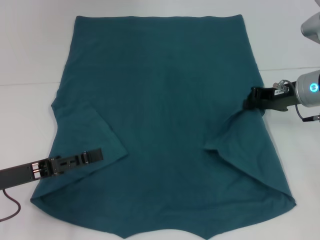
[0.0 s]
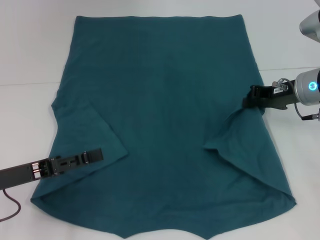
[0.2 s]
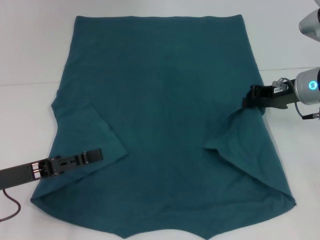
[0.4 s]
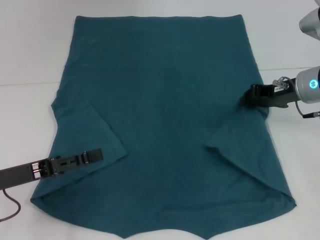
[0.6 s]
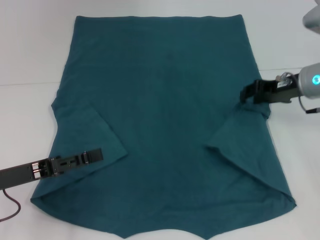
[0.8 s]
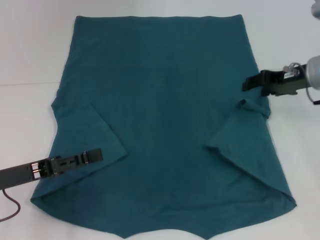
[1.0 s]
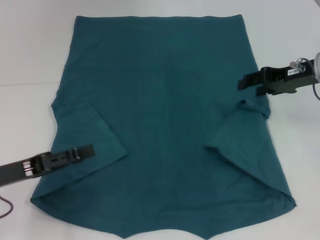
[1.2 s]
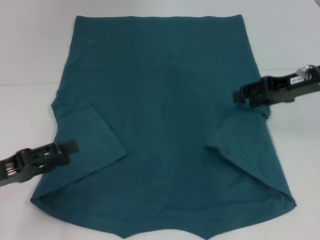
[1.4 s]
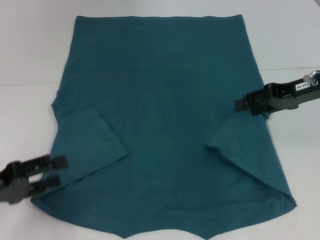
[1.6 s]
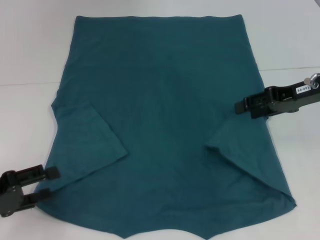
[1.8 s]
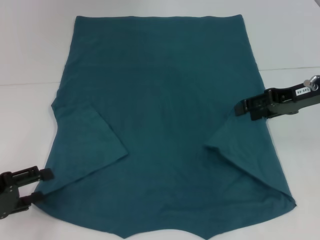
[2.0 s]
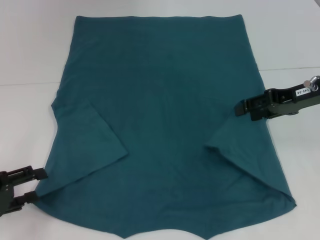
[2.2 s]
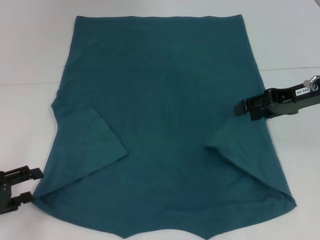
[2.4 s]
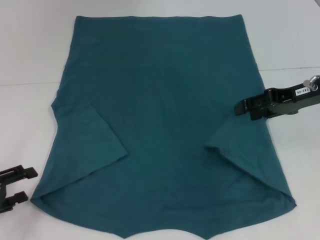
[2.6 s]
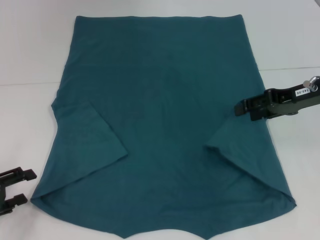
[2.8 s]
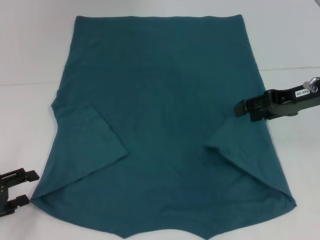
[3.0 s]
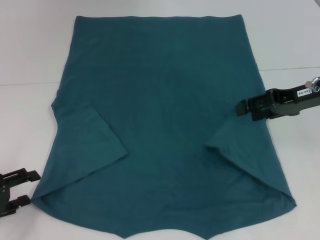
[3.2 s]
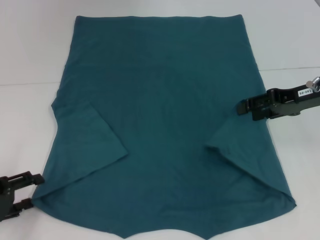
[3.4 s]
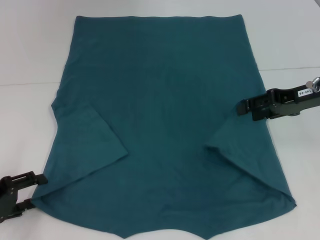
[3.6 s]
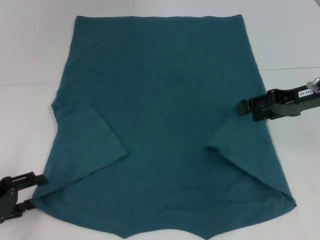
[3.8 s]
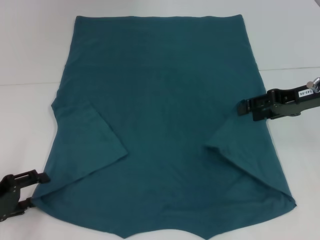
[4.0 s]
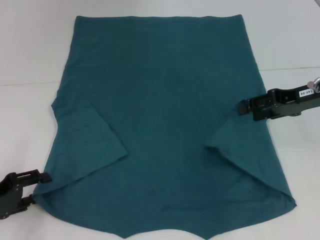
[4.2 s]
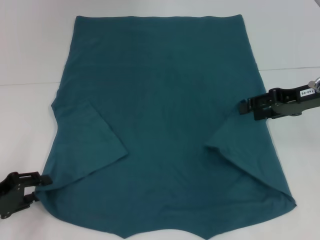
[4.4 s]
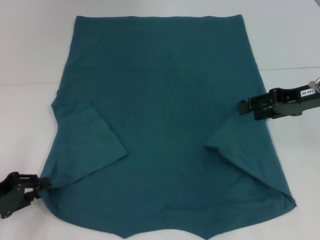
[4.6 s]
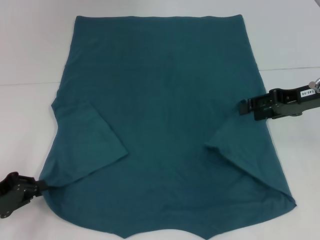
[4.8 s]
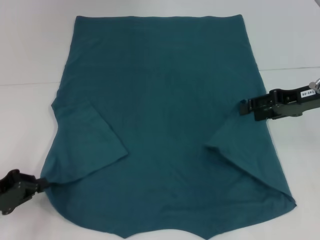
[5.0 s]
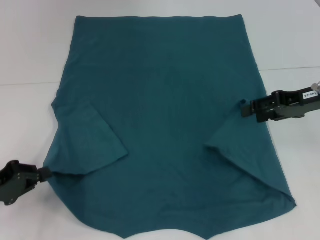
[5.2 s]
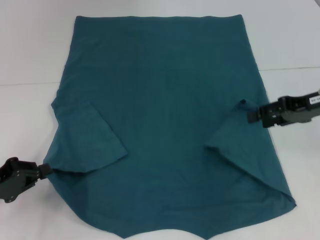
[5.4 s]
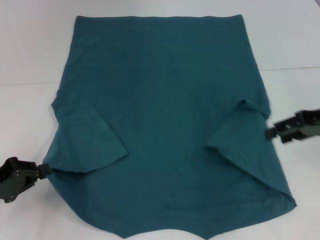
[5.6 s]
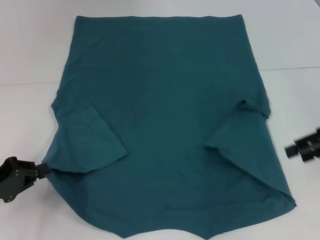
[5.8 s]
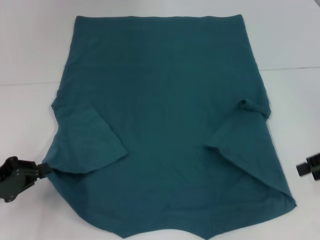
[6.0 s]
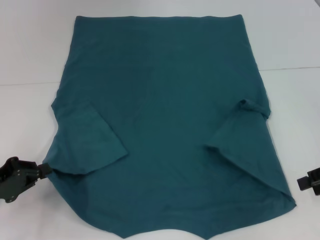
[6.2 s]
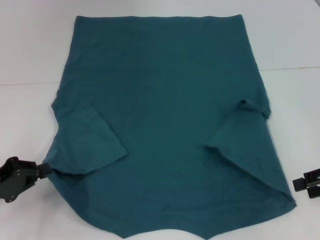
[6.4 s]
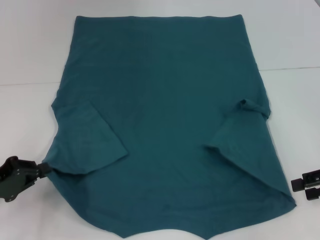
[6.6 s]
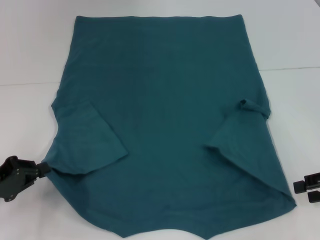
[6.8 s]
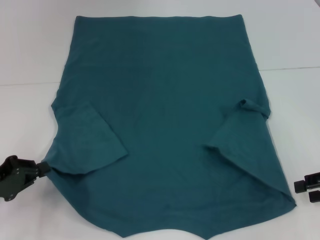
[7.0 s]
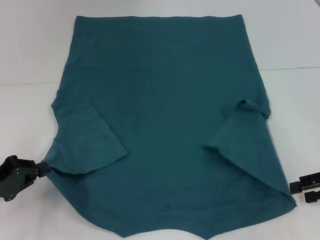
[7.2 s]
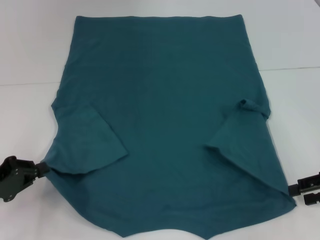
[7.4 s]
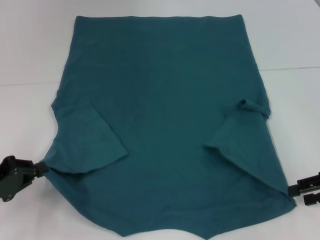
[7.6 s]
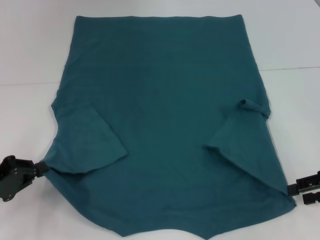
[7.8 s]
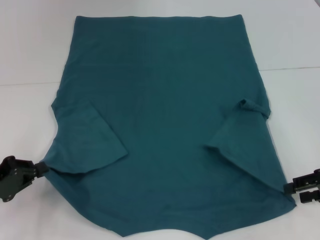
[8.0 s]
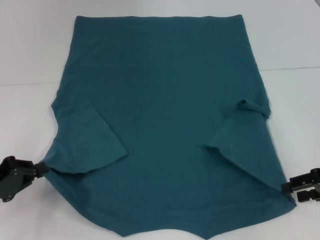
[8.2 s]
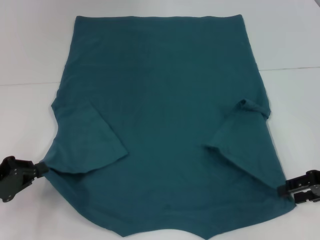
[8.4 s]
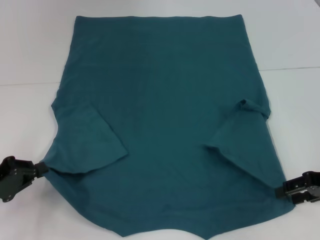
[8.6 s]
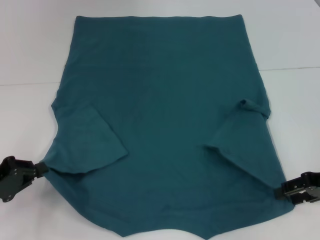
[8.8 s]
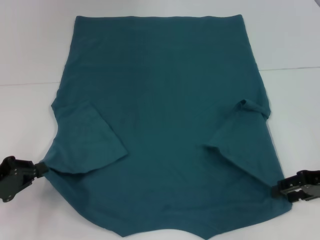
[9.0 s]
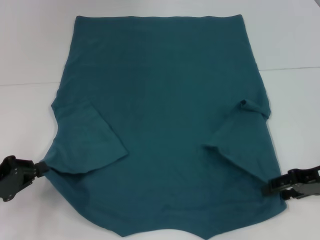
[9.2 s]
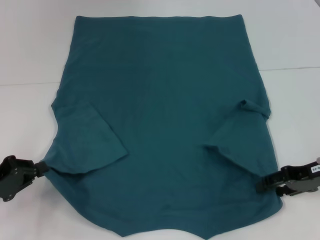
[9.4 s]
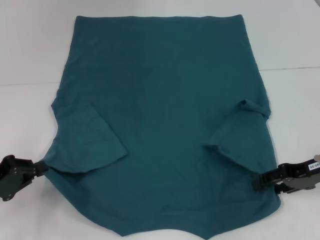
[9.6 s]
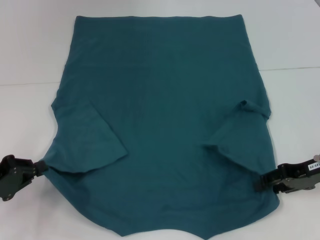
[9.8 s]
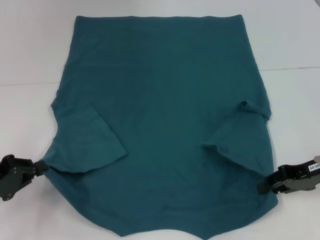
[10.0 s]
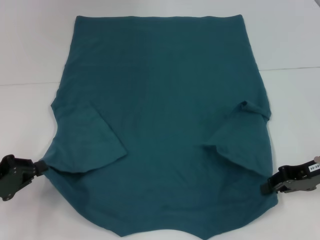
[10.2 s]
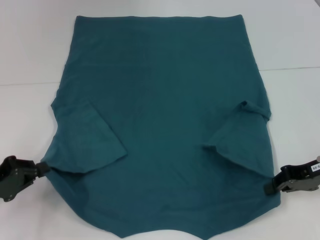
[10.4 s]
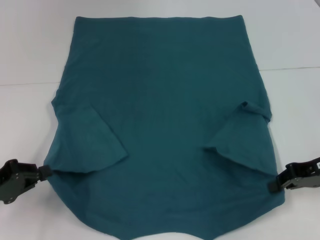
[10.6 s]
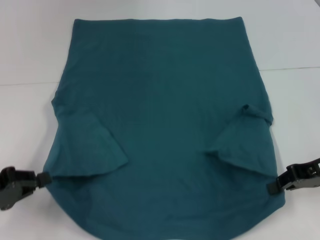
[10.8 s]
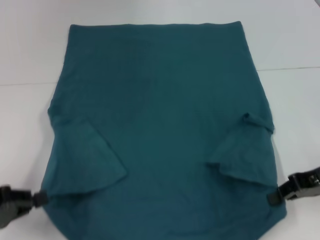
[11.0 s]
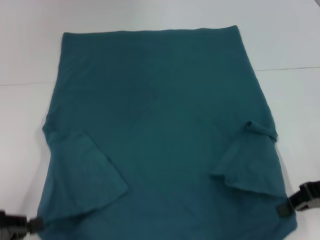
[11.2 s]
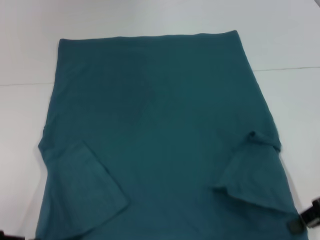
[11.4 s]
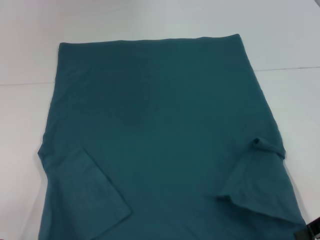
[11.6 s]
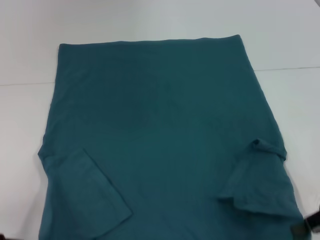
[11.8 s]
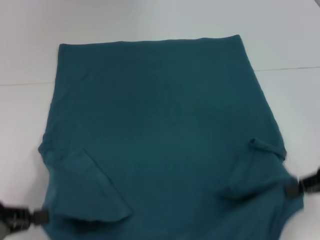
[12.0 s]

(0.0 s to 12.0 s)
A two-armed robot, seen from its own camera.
Step, 1.0 s - 5.0 s: Grab the bottom left corner with your left hand.
Step, 5.2 s - 10.4 s: Grab the bottom right corner with your right hand.
0.0 s - 1.6 s: The right gripper shifts approximately 5 cm upward, and opens up.
3.0 s - 4.4 s: The grippers stay close to where they were, moving slightly.
4.4 s - 6.0 s: The right gripper heads to the right and backward, covering some 10 cm. The left gripper closes.
6.0 s - 7.6 s: The right gripper shifts approximately 5 cm downward.
7.6 s - 9.0 s: The grippers move only a little.
9.0 s - 10.4 s: The right gripper closes.
10.4 s - 12.0 s: The left gripper shifts some 5 cm backward. Meanwhile the right gripper changes place by approximately 5 cm.

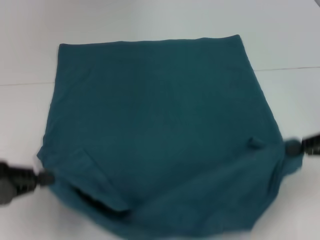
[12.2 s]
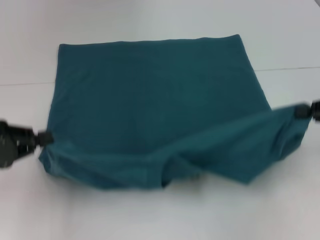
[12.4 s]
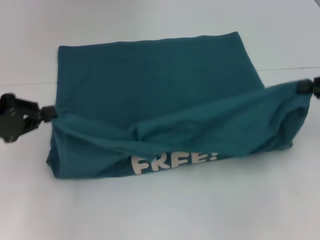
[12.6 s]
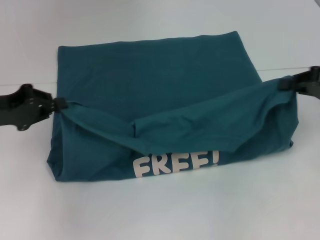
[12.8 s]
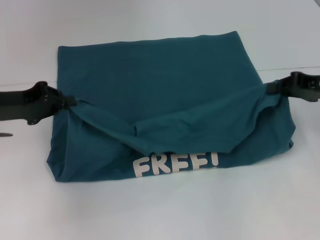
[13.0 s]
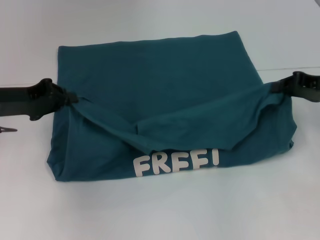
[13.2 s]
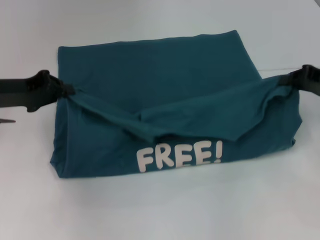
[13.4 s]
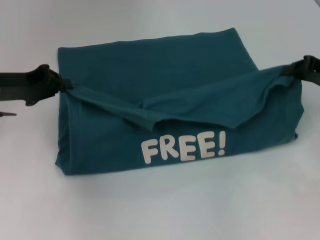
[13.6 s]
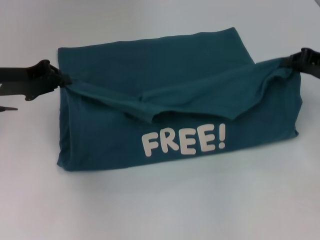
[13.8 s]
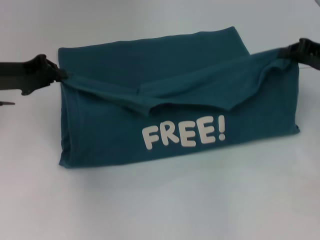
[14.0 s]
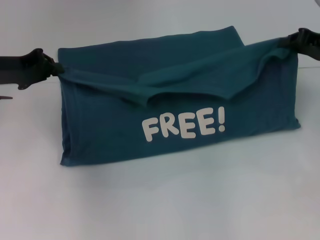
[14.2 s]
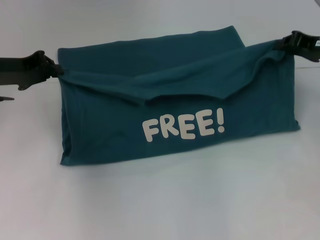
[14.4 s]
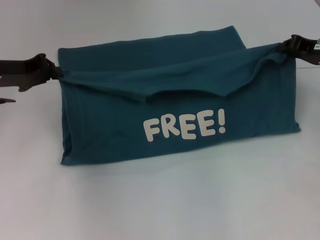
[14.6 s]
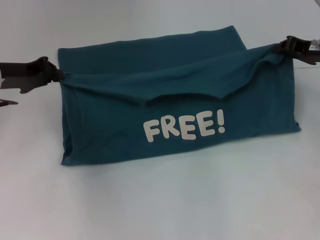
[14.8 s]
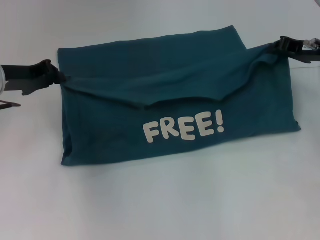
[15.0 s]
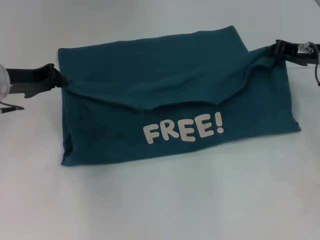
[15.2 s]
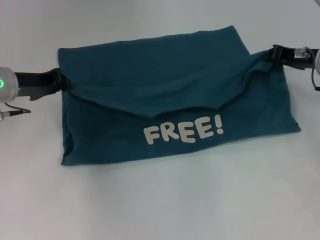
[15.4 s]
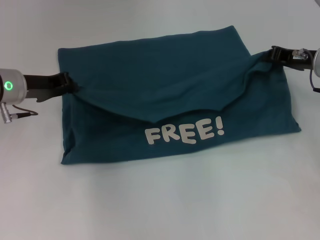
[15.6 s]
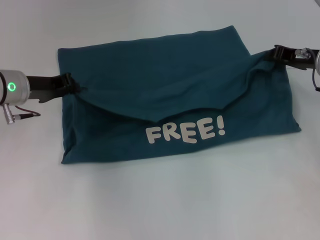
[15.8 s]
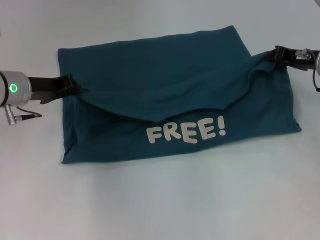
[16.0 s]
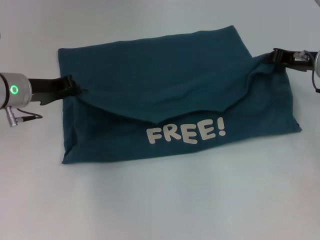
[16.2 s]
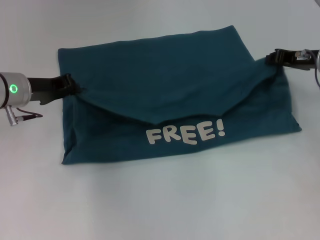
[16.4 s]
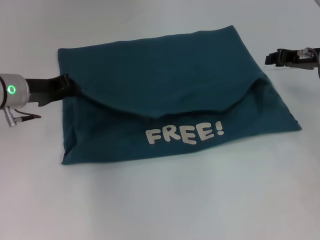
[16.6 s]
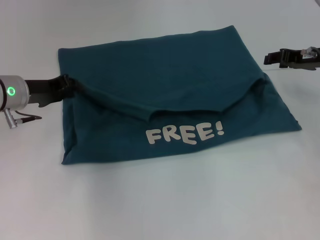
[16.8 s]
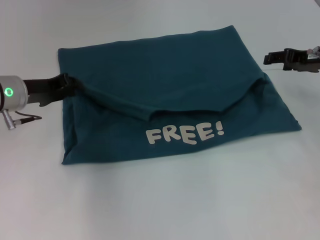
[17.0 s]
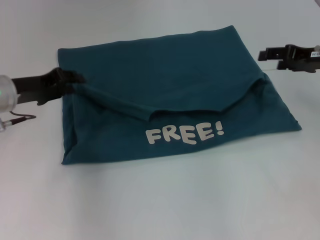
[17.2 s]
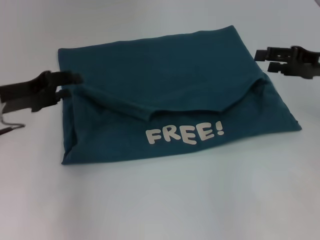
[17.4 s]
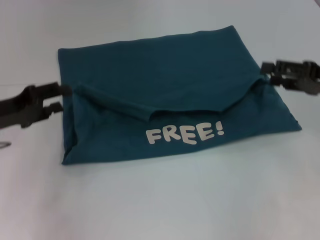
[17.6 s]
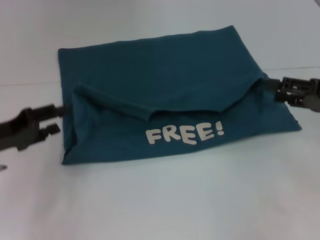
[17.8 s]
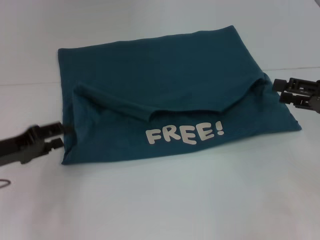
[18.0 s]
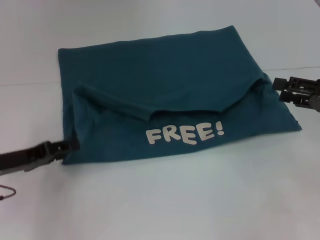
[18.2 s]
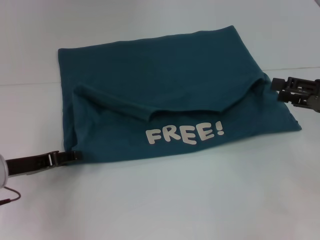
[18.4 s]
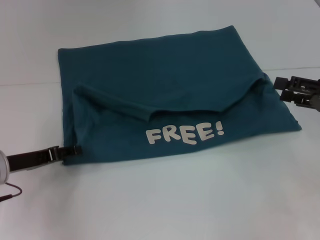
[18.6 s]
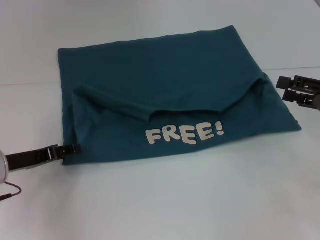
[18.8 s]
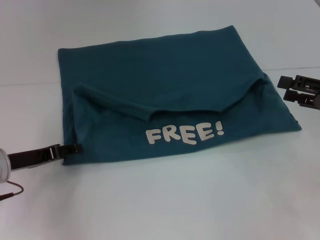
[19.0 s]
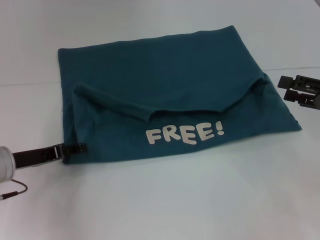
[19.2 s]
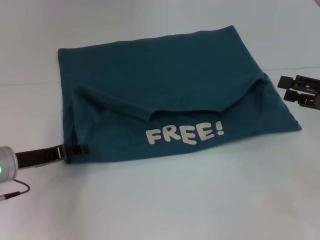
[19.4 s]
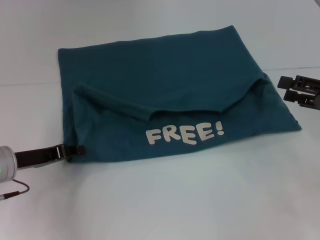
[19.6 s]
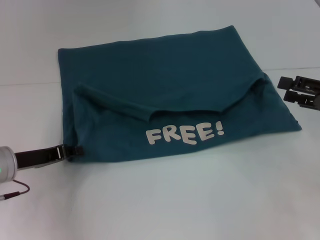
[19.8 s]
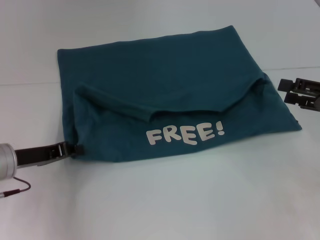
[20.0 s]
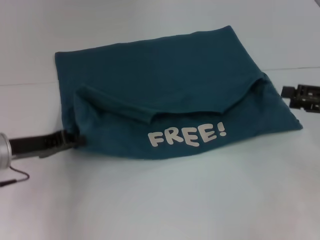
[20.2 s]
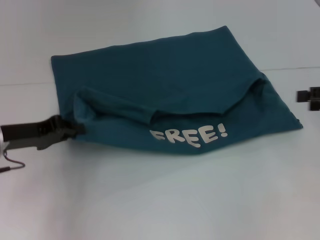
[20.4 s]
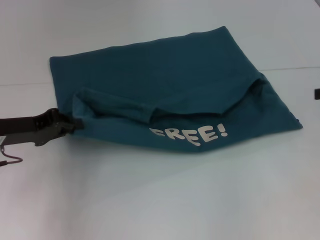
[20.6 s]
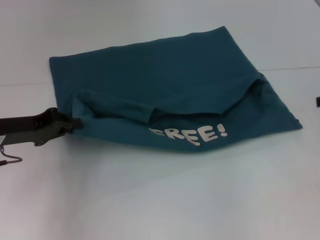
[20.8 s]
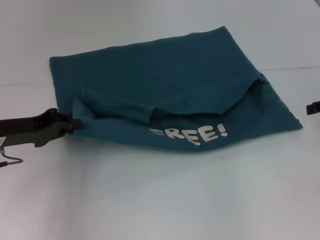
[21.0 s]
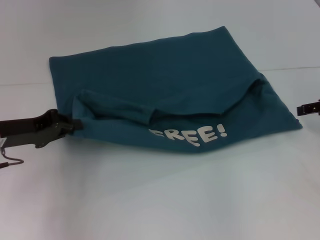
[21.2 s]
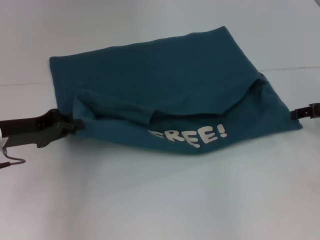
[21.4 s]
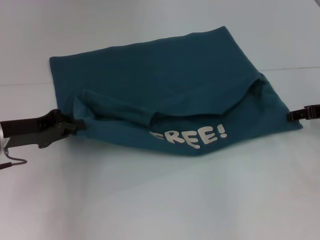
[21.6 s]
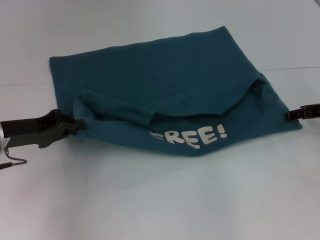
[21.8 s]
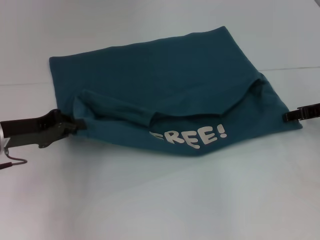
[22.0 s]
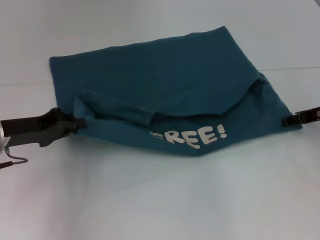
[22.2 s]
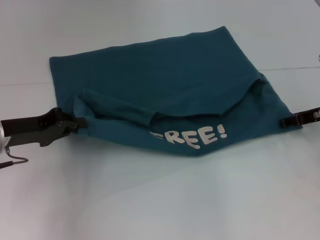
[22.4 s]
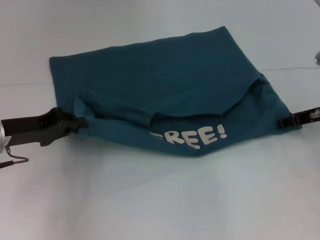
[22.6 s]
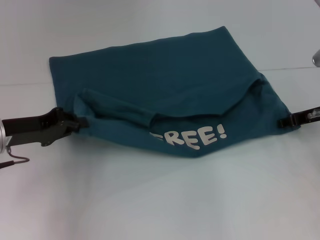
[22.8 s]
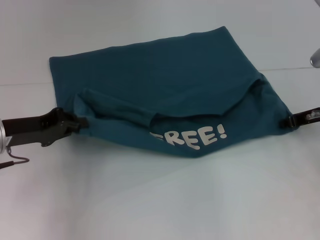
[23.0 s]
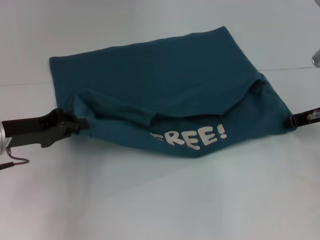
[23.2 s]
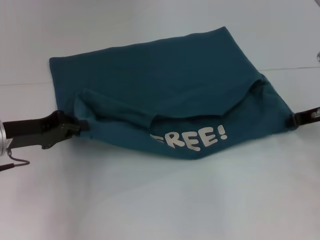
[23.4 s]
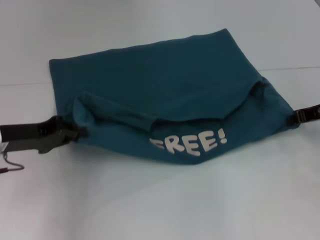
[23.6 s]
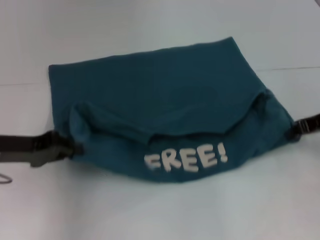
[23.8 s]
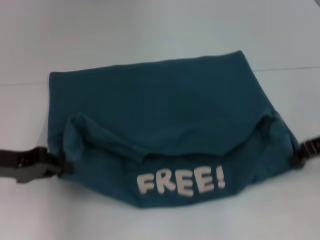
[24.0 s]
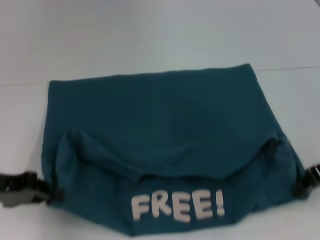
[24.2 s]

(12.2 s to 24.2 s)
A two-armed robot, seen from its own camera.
Step, 12.2 s - 16.8 s: Fold the clothes to the left.
Step, 12.2 s - 16.8 s: Fold the clothes to the right.
12.2 s - 13.8 s: The right gripper is displaced forward by roughly 10 cm, while the left gripper goes about 15 cm forward.
13.8 s - 15.2 s: The right gripper ends up roughly 5 cm from where it was.
15.2 s - 16.6 s: The grippers make only small movements.
16.6 s - 18.2 s: The left gripper shifts about 10 cm backward and downward, and opens up. The right gripper heads backward, covering some 15 cm, and opens up.
18.2 s - 19.8 s: The grippers stay close to where they were, moving slightly.
19.8 s - 21.2 s: The right gripper shifts approximately 5 cm forward. The left gripper ends up some 5 cm from where it was, and closes.
21.2 s - 22.6 s: The right gripper moves some 5 cm.
22.6 s - 24.2 s: The left gripper heads backward, covering roughly 5 cm; the right gripper travels backward and upward by about 10 cm, and closes its fingers.
